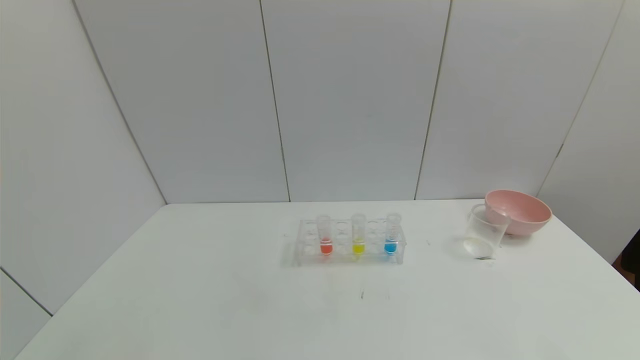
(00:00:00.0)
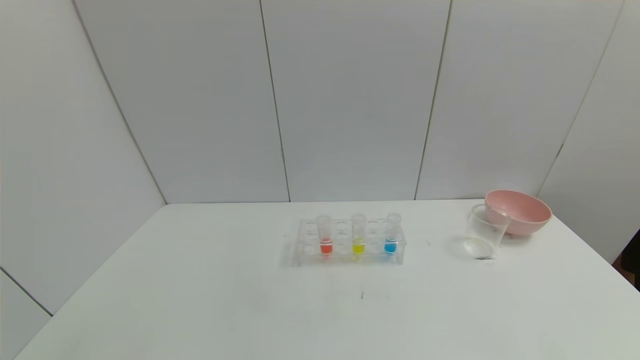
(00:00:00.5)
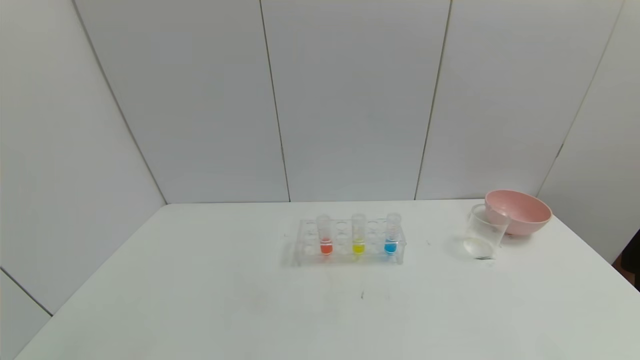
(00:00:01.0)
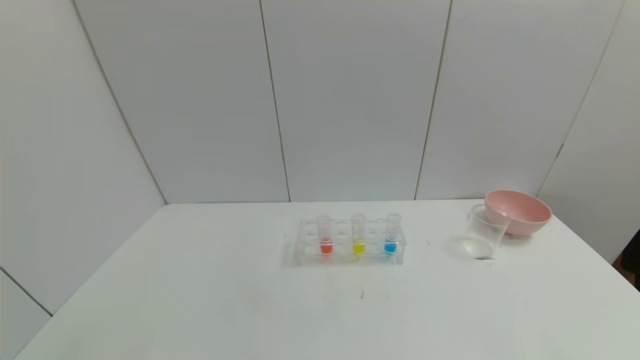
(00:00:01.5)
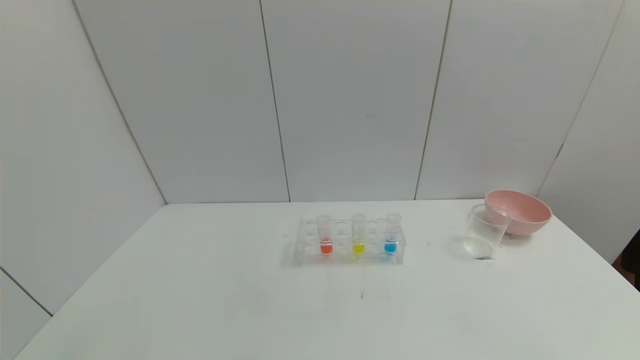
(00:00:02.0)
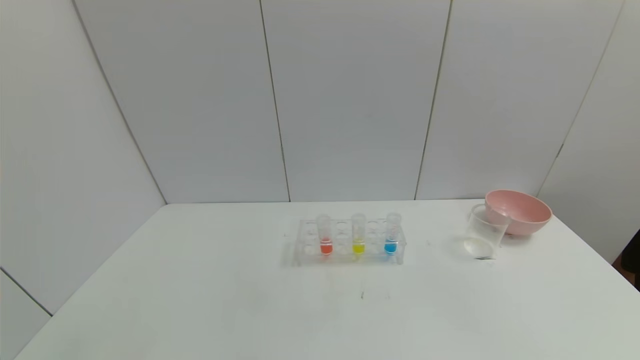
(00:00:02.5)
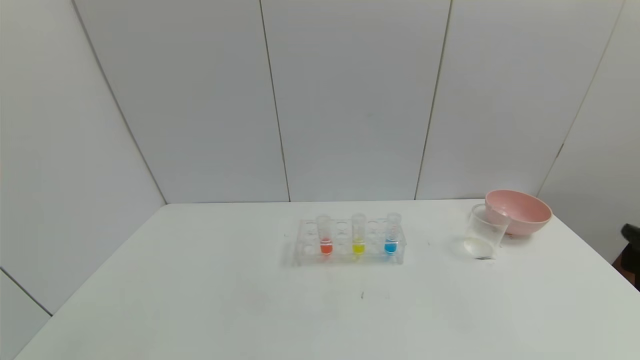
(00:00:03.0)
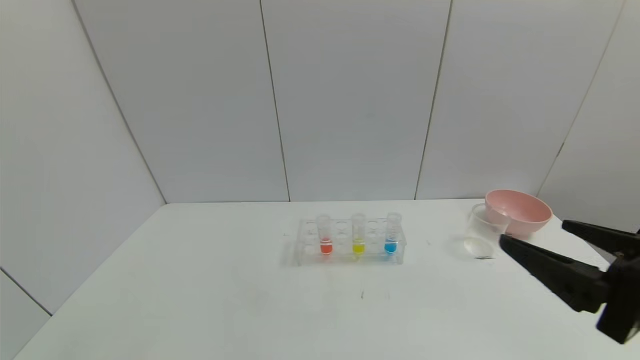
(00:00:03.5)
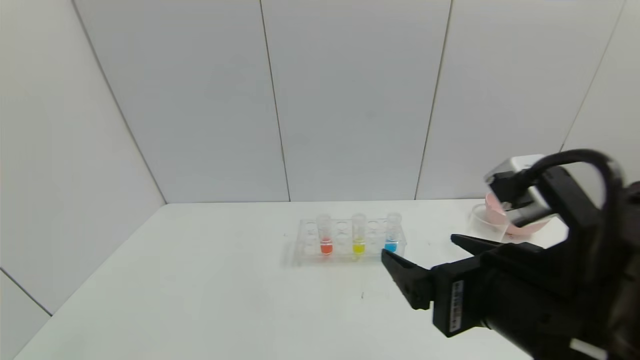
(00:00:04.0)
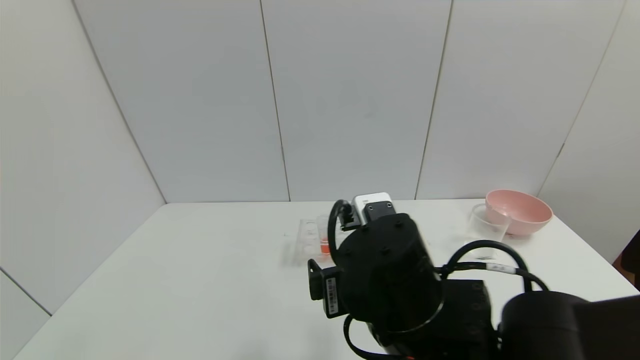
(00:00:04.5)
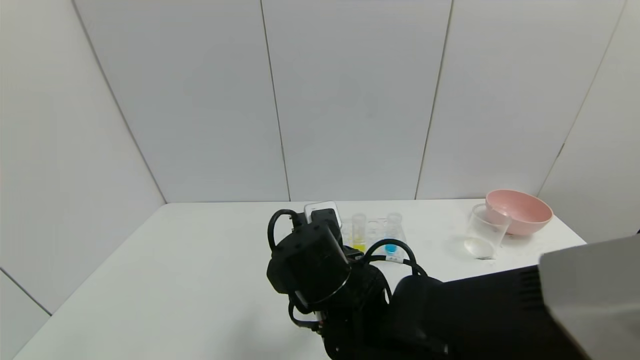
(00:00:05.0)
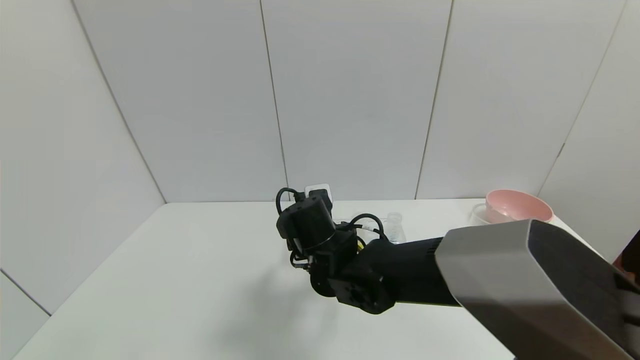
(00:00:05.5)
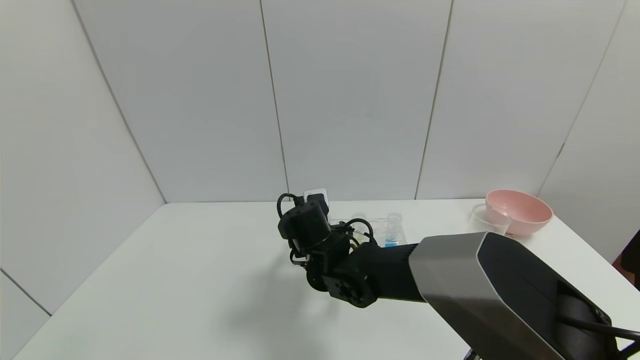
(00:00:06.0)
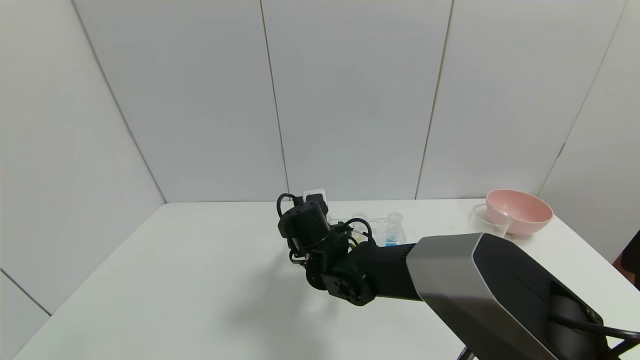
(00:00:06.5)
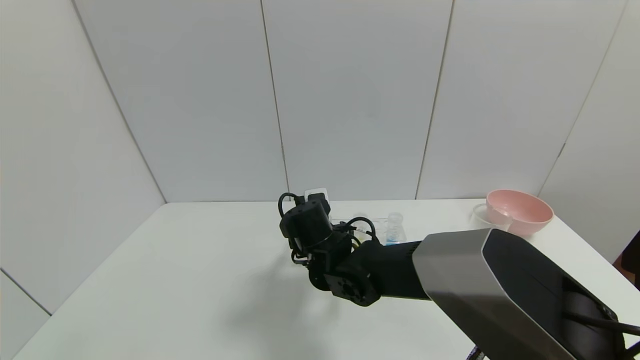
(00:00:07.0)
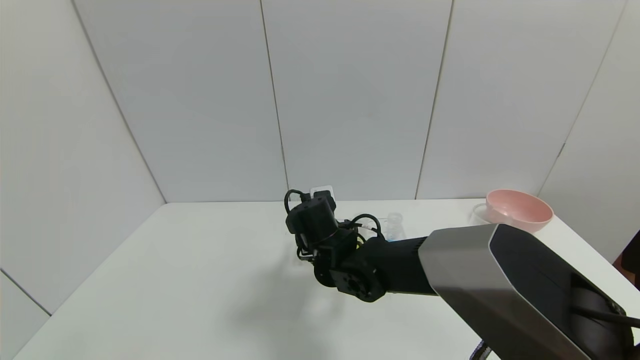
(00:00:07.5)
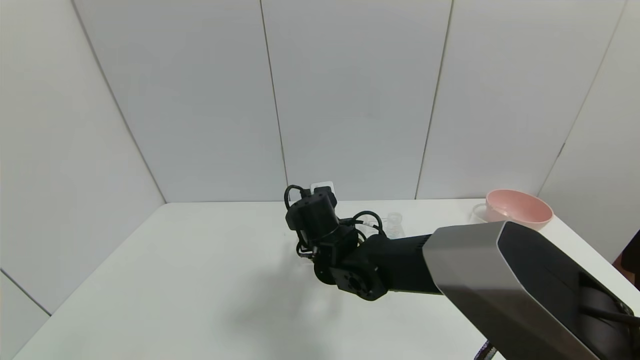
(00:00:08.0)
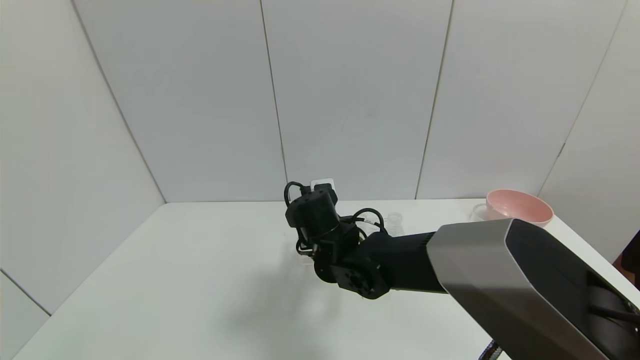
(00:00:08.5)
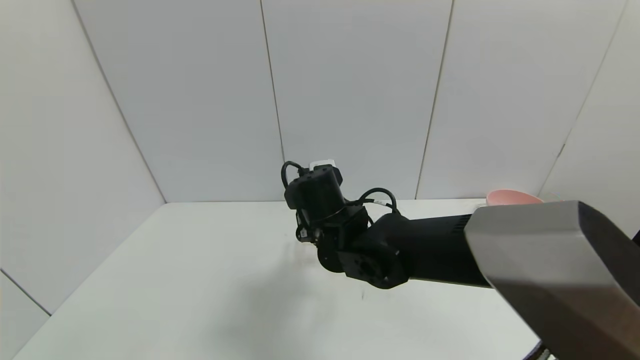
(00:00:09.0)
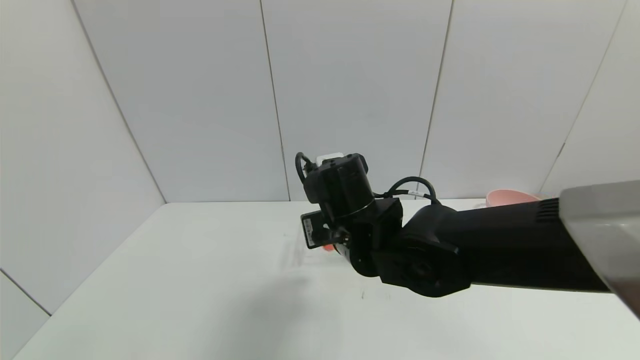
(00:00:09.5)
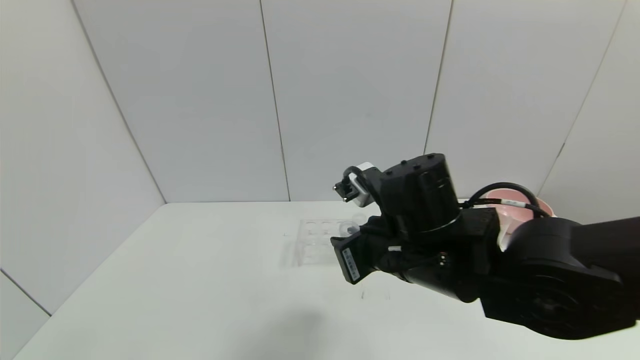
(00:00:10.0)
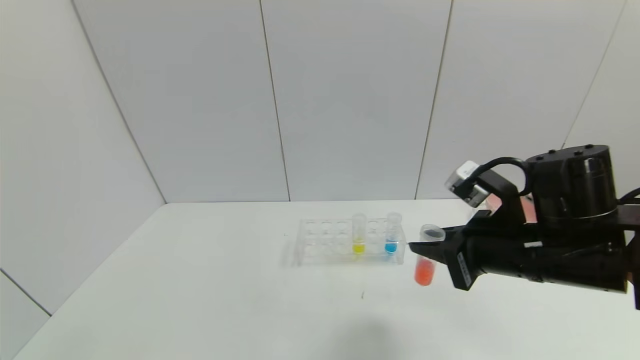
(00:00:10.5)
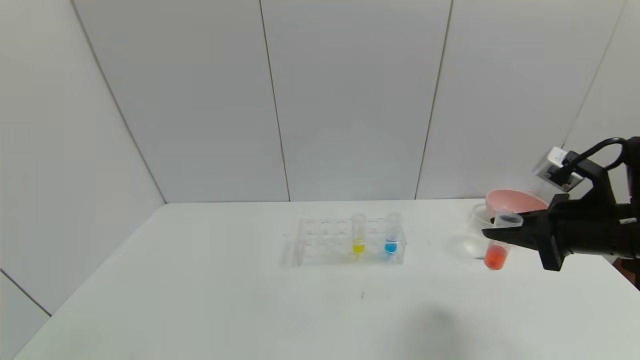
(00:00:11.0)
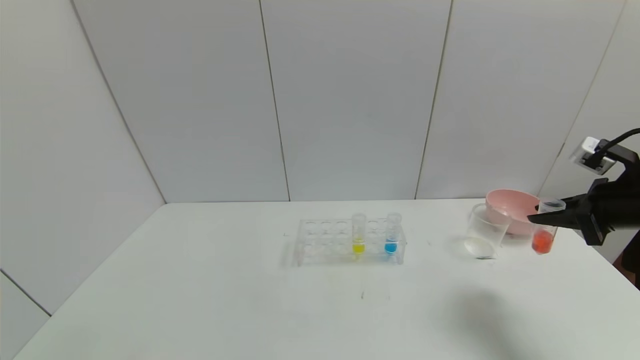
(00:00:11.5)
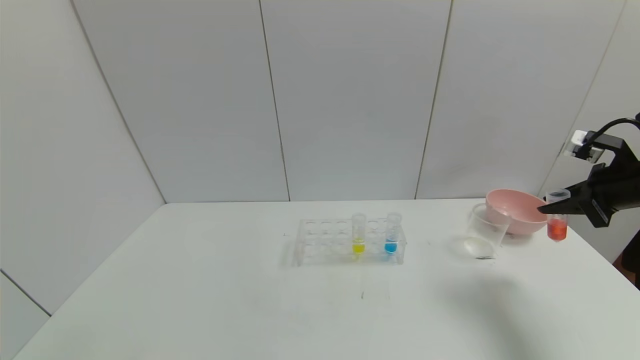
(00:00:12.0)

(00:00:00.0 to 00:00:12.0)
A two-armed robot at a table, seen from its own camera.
Task of the whole recording: pick up the test tube with yellow pigment and the test tube with red pigment by grippers and pour them into the beaker.
Step, 00:00:00.0 - 00:00:10.5: Pick up the test tube containing the red reagent with right gripper.
00:00:02.0 - 00:00:04.0: The right gripper goes about 30 cm to the left, forward and upward.
00:00:04.0 - 00:00:06.0: The right gripper shifts approximately 30 cm forward, to the left and downward.
00:00:06.0 - 00:00:08.0: The right gripper closes its fingers.
00:00:08.0 - 00:00:10.0: The right gripper goes roughly 20 cm backward, to the right and upward.
00:00:10.0 - 00:00:12.0: The right gripper goes roughly 35 cm to the right.

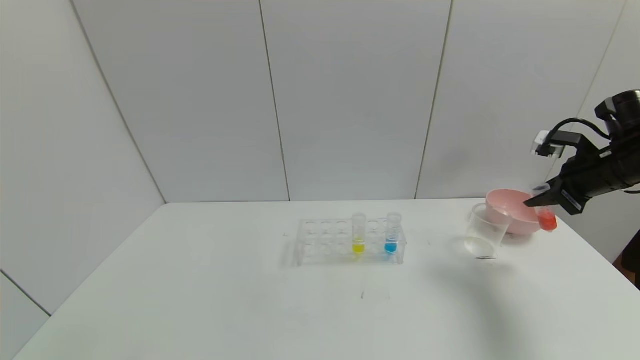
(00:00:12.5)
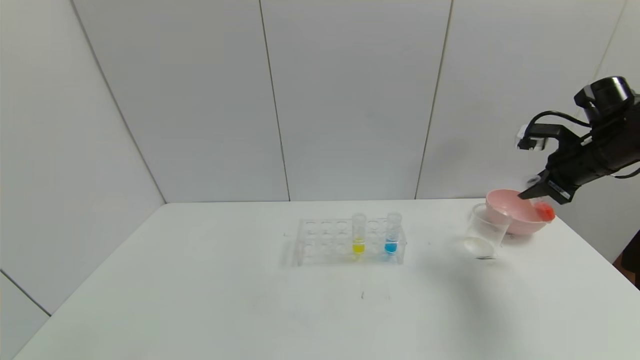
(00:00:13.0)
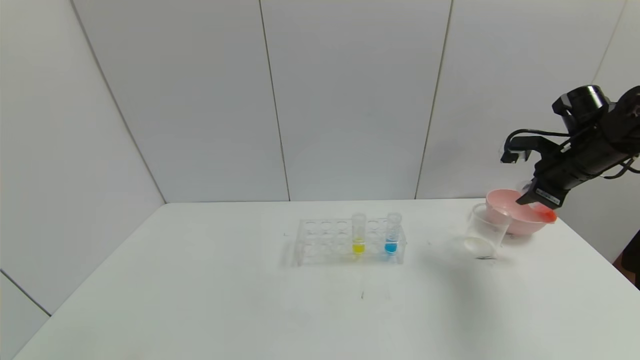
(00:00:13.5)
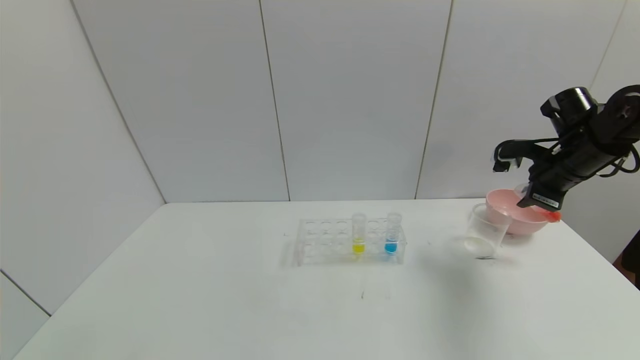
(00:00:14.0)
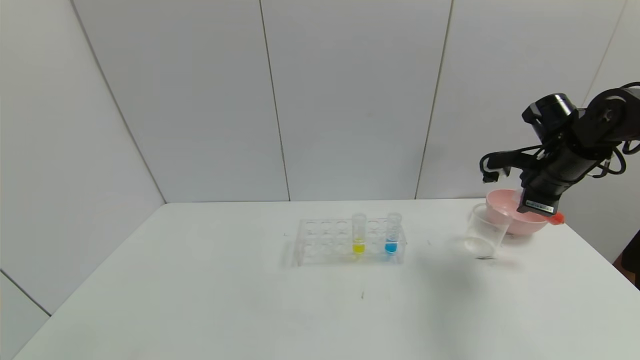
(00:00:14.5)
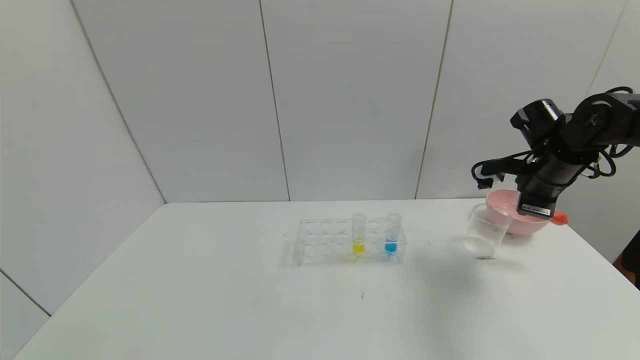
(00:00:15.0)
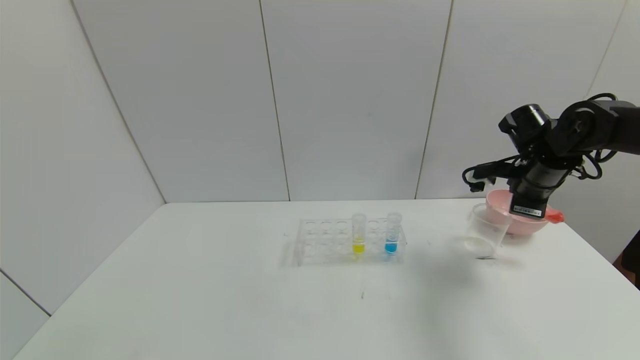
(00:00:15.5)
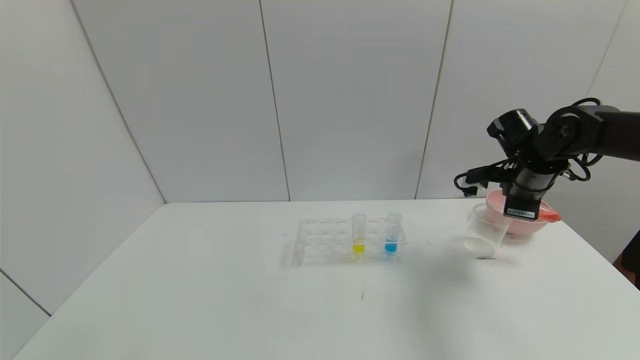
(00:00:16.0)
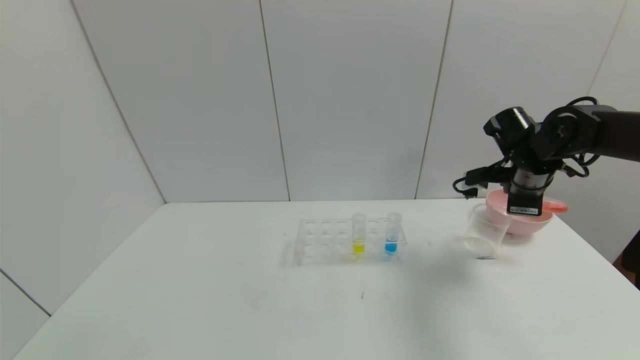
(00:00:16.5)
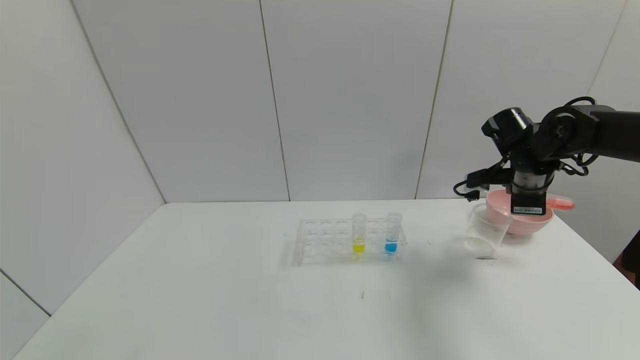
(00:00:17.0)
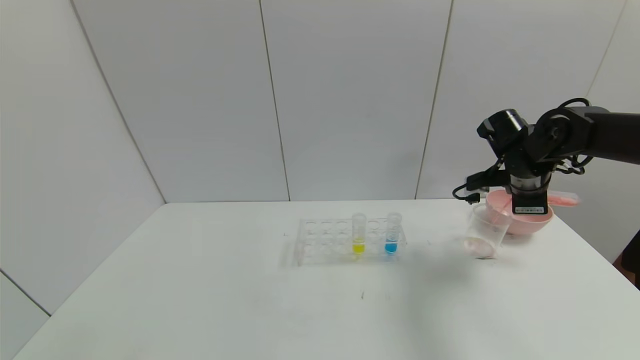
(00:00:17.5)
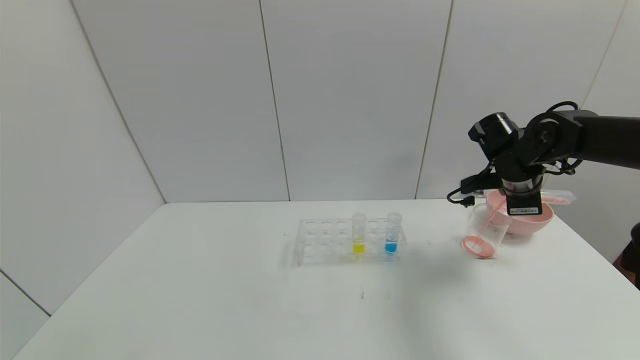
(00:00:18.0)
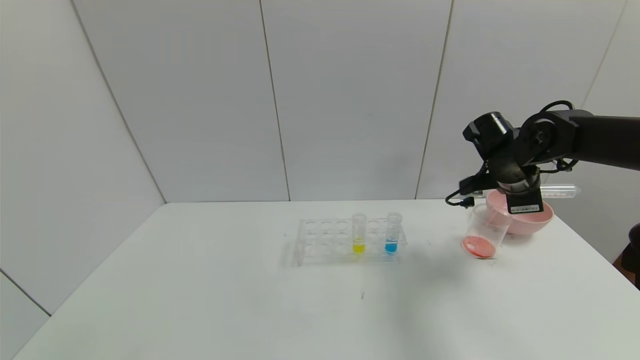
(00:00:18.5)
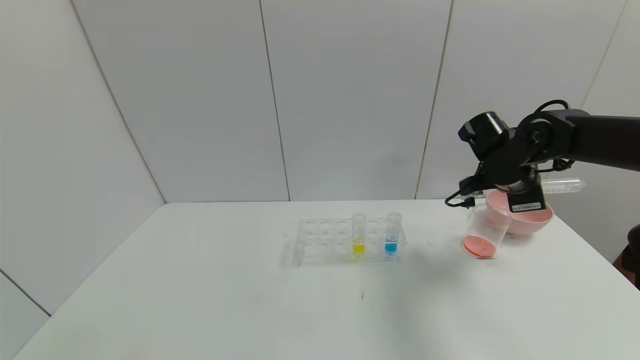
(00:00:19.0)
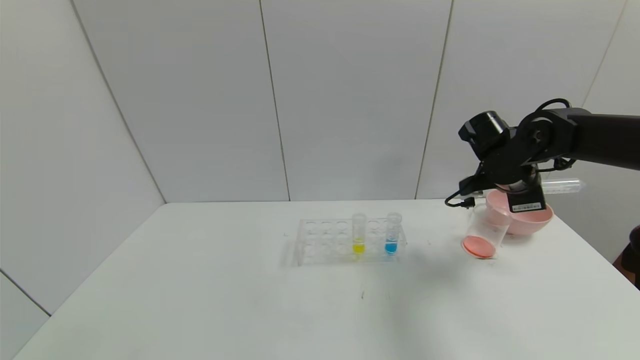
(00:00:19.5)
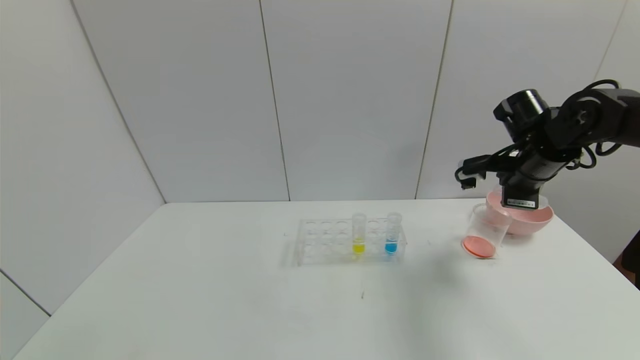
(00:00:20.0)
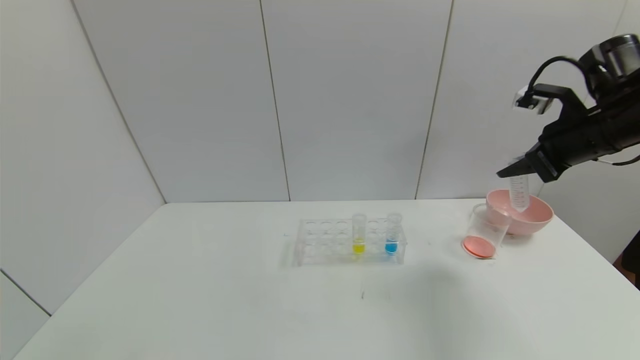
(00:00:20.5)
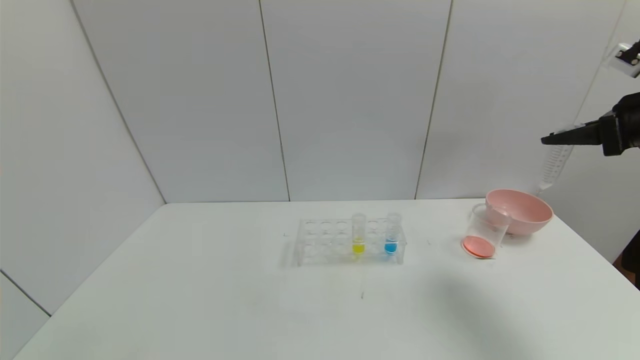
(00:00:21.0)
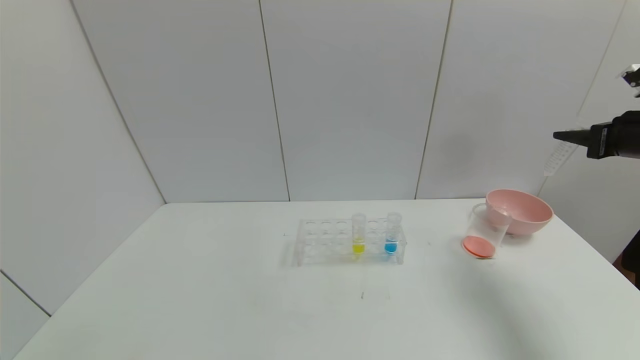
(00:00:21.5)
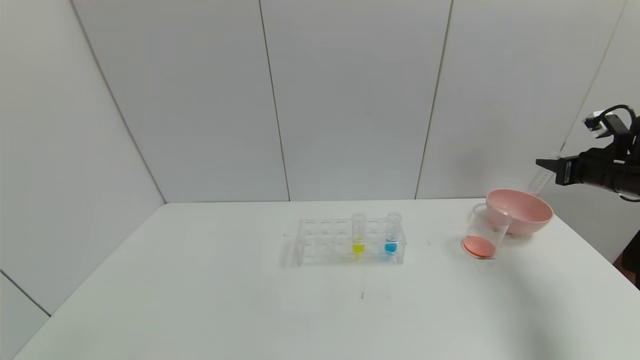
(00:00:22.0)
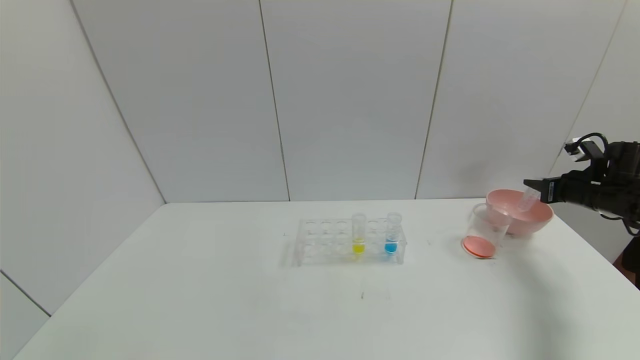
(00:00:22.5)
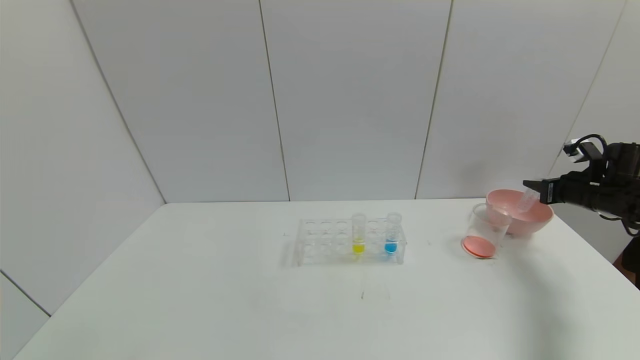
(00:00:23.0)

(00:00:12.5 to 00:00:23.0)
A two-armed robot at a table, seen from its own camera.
Task of the whole recording: pick up the test tube with yellow pigment and the test tube with red pigment by grippers and pour them into the beaker.
Step, 00:00:12.5 - 00:00:20.5: Pour the red reagent into the graduated cylinder with right gripper.
00:00:12.5 - 00:00:14.5: The right gripper goes approximately 5 cm to the left.
00:00:14.5 - 00:00:16.5: There are only small adjustments of the grippers.
00:00:19.0 - 00:00:21.0: The right gripper heads to the right, upward and backward, covering approximately 20 cm.
00:00:21.0 - 00:00:23.0: The right gripper heads downward, forward and to the right, covering approximately 20 cm.
